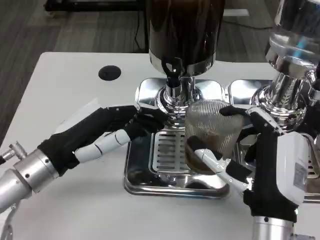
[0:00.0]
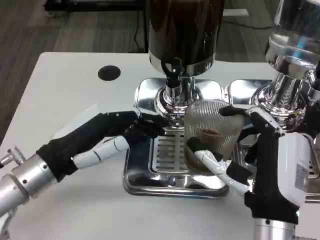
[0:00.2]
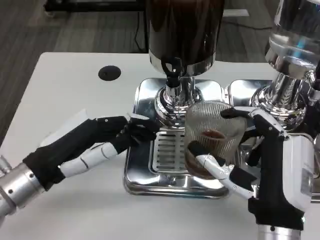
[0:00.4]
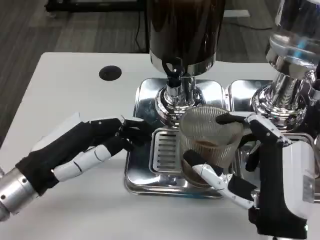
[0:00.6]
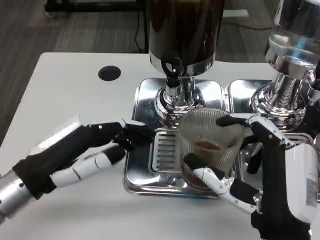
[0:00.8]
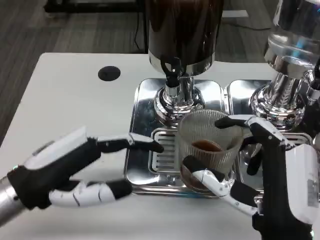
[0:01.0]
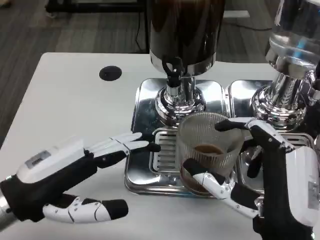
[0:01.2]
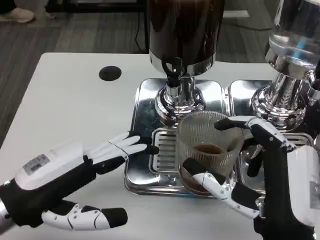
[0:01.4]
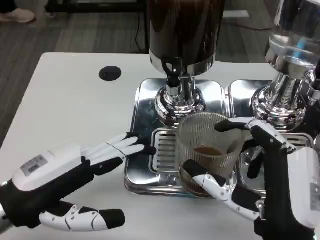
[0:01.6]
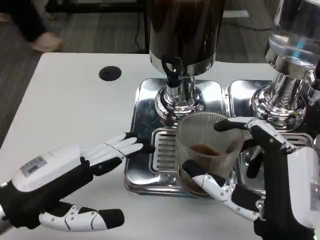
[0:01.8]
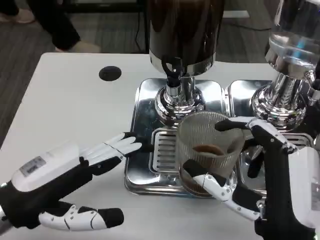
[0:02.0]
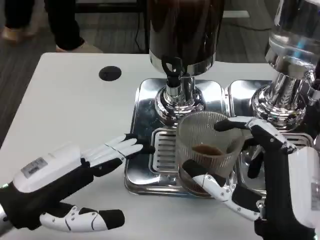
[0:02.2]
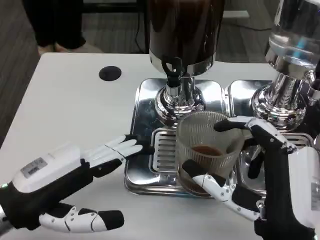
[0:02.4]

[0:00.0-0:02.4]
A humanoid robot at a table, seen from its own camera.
Task of the whole recording: Grasp the cup under the faucet to collect the drink, then remove the cup.
0:00.0 to 0:01.2: The left hand heads backward, covering approximately 5 cm.
0:01.2 to 0:02.4: The two hands keep their place.

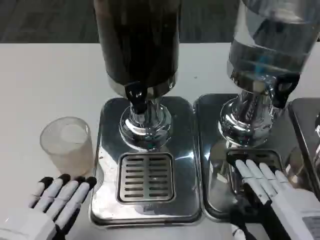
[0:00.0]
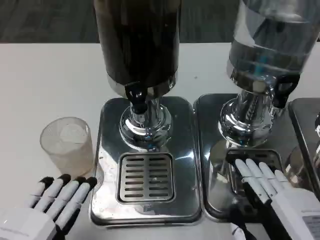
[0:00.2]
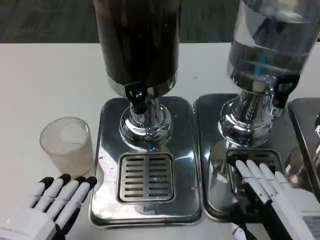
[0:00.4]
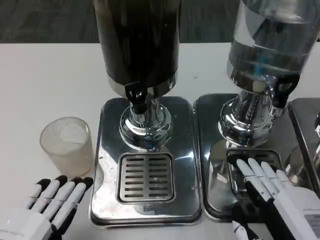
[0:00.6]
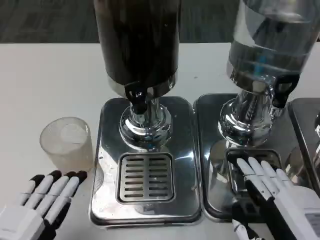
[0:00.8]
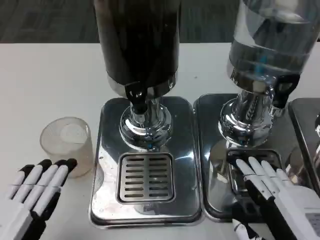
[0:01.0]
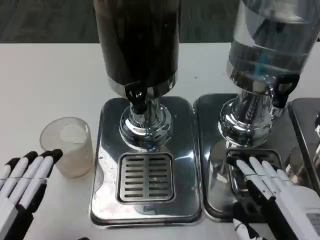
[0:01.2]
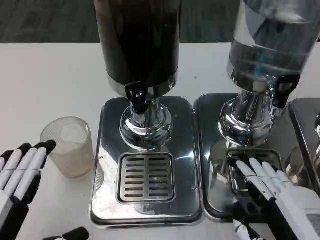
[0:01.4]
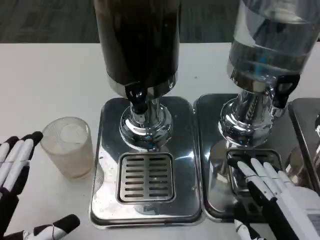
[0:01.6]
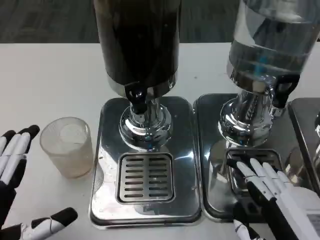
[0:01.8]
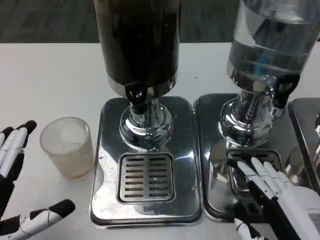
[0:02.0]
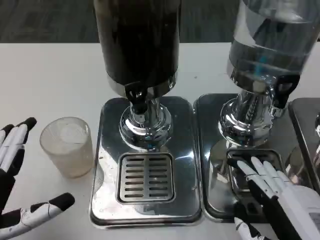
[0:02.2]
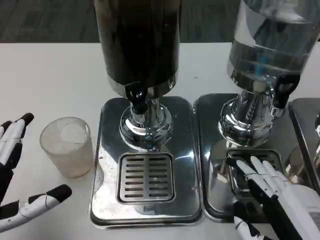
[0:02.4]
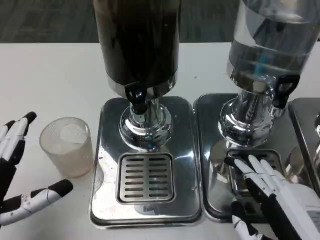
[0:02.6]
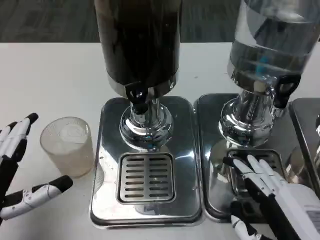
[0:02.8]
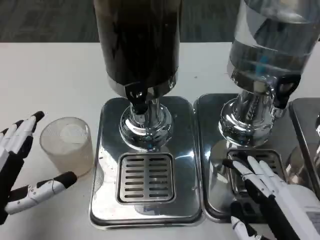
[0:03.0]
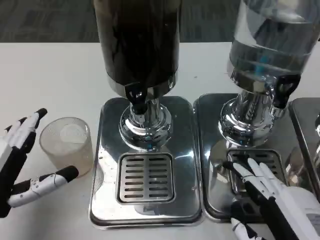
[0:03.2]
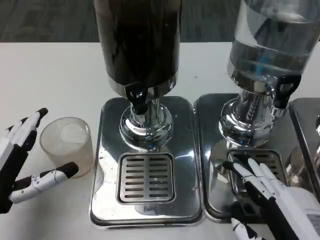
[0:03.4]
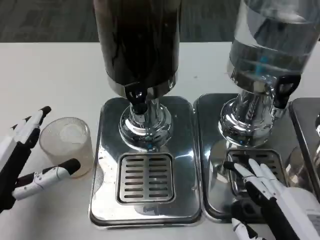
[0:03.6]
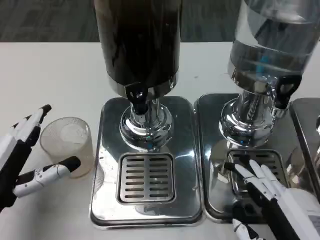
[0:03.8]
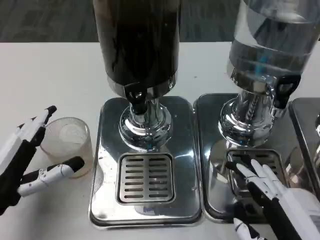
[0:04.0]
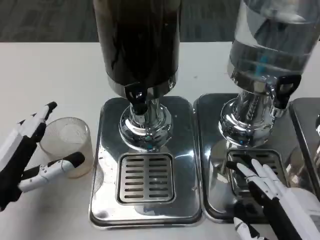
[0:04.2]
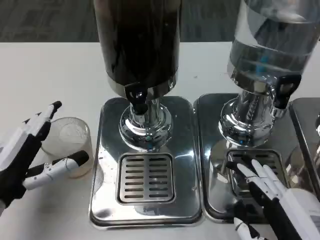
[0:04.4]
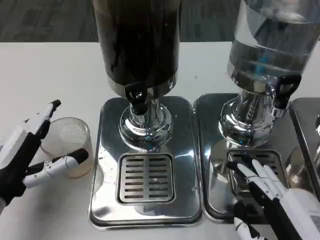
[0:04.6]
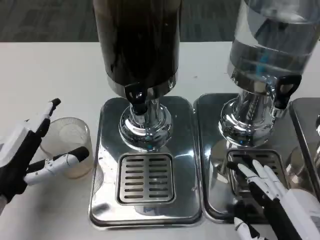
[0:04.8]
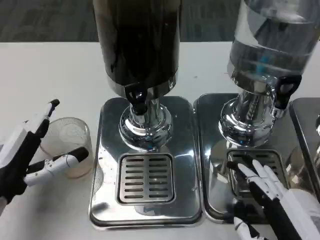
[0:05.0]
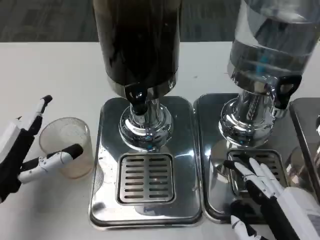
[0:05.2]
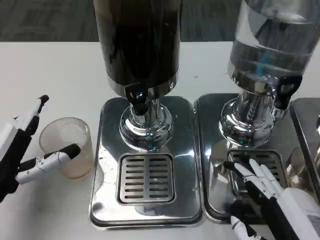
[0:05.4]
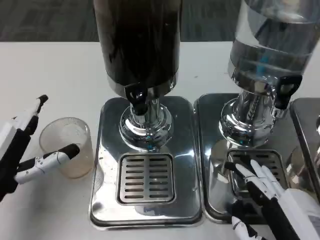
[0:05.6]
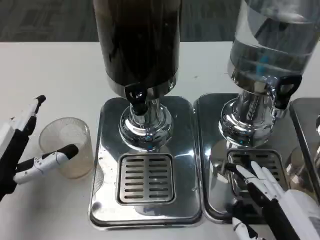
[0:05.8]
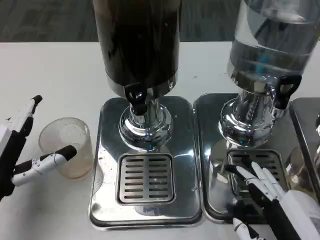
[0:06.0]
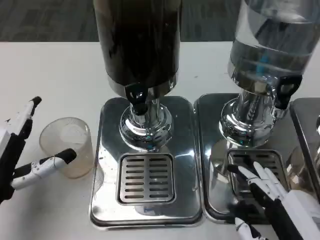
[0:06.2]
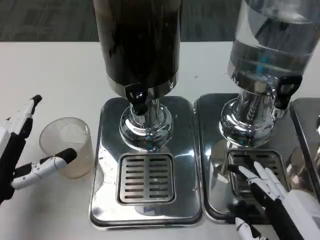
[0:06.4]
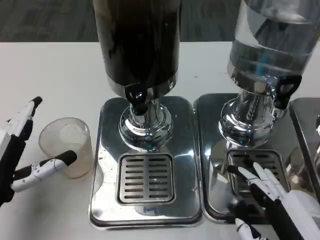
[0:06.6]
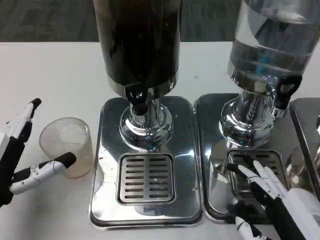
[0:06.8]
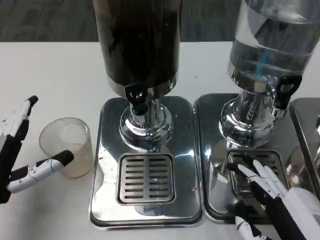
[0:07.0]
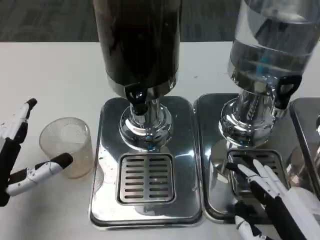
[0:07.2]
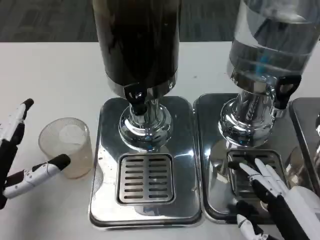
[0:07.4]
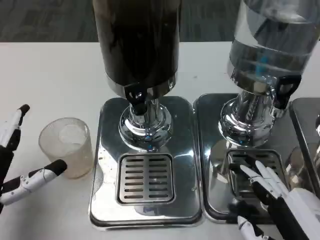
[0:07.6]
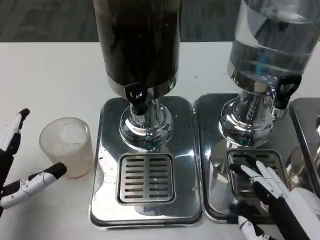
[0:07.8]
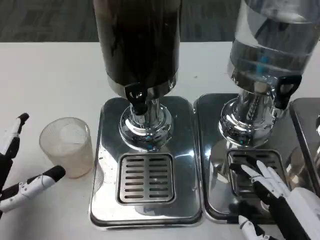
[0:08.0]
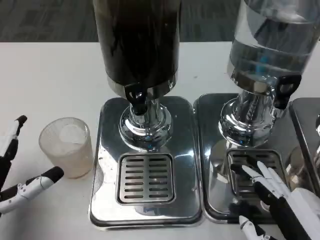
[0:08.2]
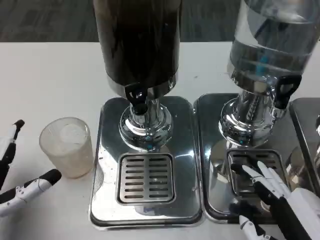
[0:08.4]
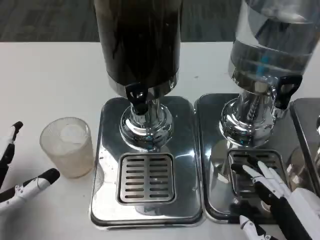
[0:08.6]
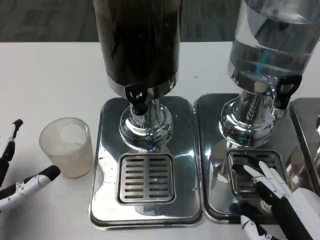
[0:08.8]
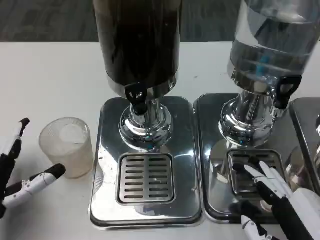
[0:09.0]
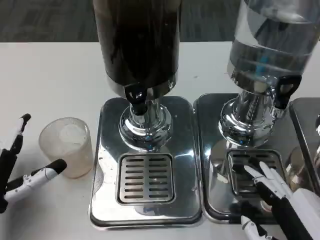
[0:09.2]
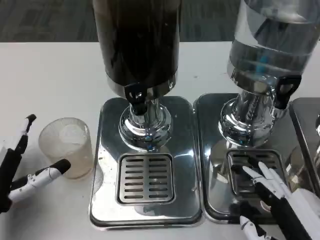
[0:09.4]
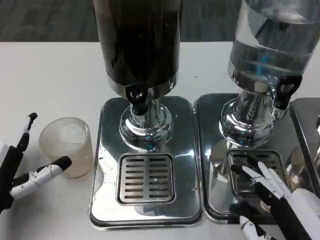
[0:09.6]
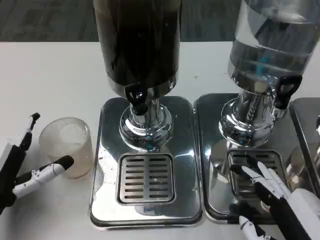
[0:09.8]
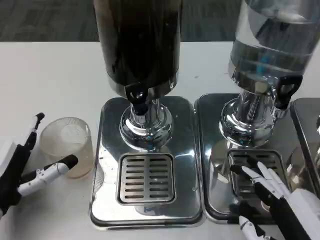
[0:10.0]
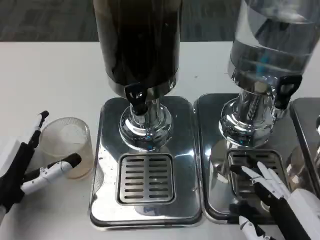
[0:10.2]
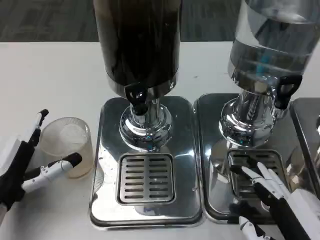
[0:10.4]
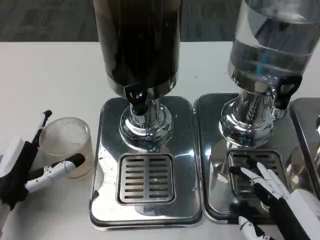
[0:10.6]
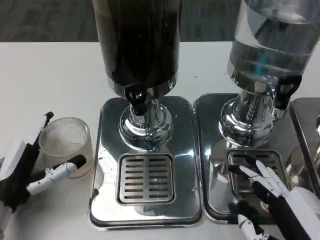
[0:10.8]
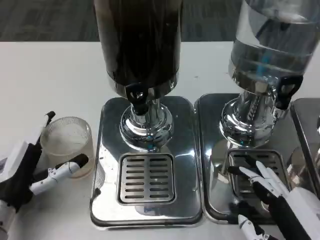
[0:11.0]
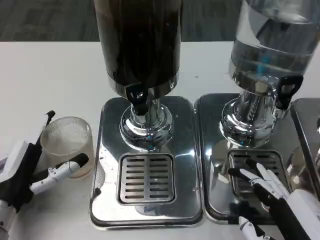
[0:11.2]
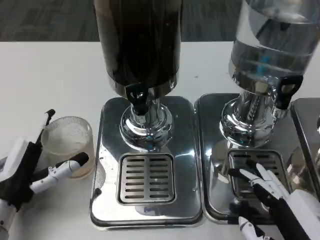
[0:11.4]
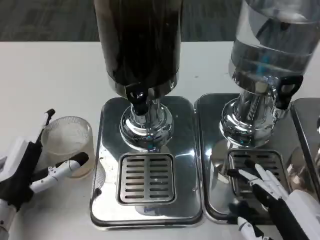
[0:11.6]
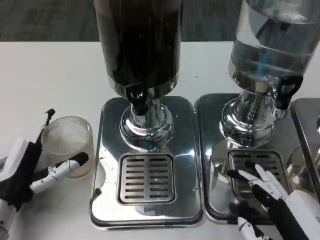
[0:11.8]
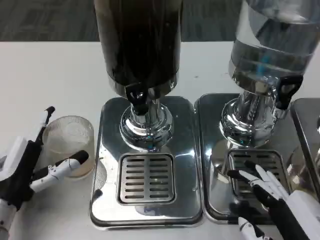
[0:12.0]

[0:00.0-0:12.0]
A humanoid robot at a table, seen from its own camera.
Task of the whole recording: Grasp the cup under the faucet to collect the drink, then remove the cup.
0:01.6 to 0:03.0: The left hand goes approximately 5 cm forward.
0:03.0 to 0:09.0: The hands move only a little.
0:09.0 to 0:12.0: The hands move only a little.

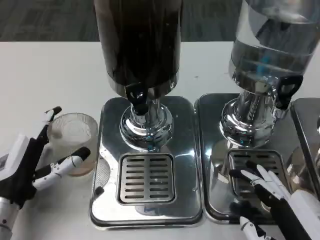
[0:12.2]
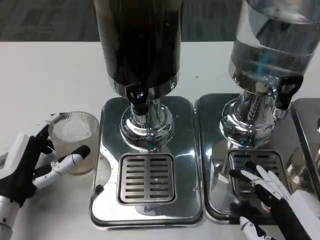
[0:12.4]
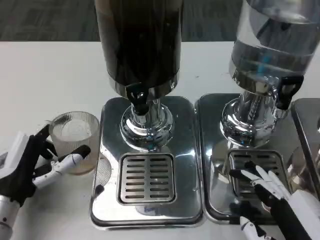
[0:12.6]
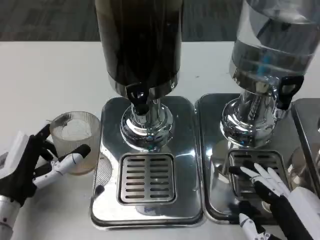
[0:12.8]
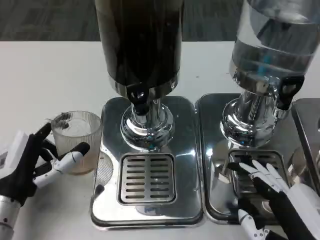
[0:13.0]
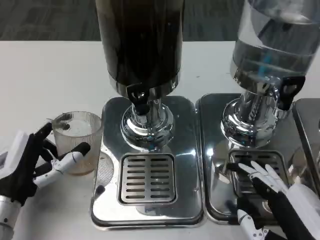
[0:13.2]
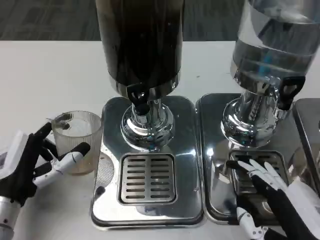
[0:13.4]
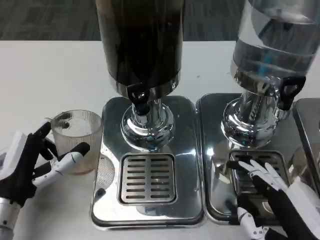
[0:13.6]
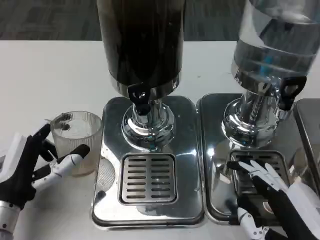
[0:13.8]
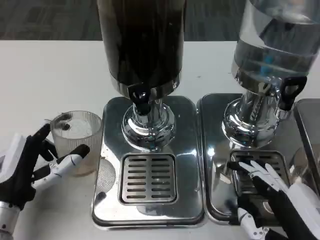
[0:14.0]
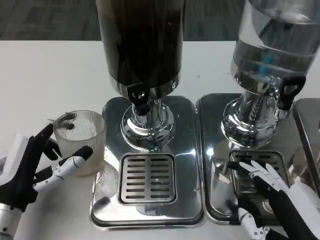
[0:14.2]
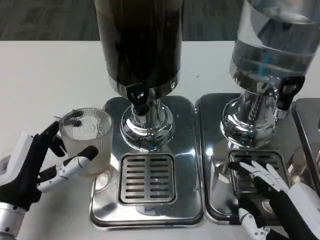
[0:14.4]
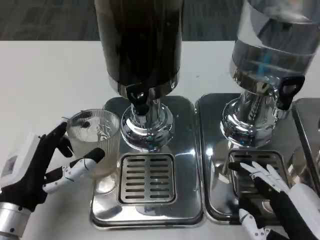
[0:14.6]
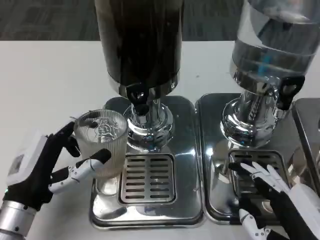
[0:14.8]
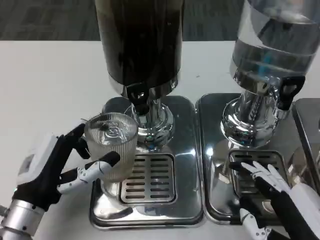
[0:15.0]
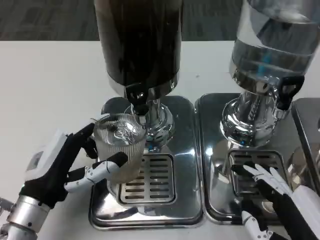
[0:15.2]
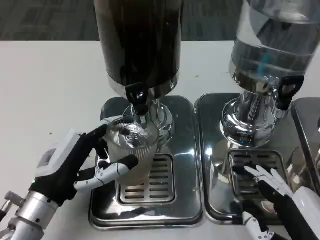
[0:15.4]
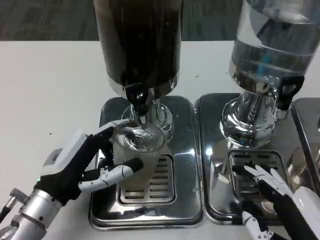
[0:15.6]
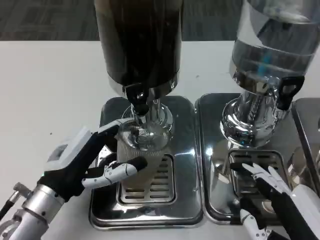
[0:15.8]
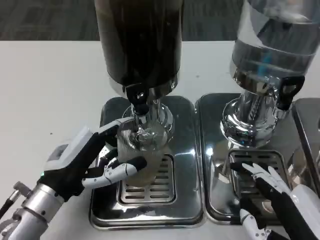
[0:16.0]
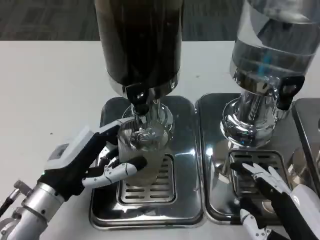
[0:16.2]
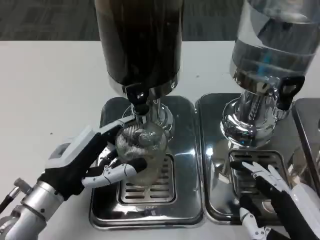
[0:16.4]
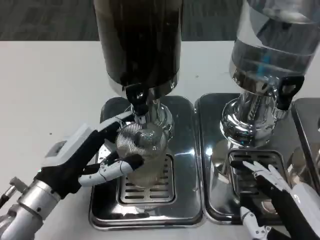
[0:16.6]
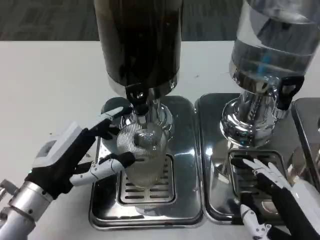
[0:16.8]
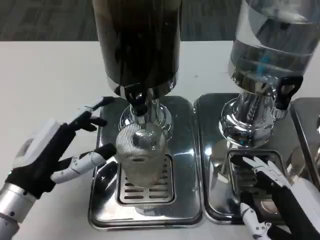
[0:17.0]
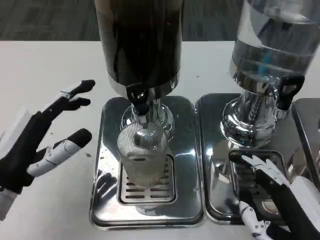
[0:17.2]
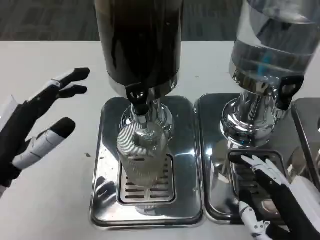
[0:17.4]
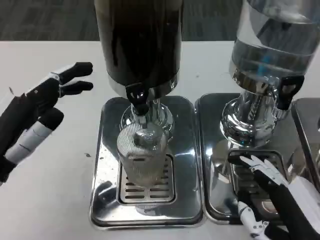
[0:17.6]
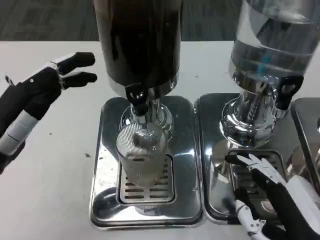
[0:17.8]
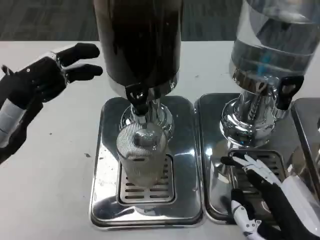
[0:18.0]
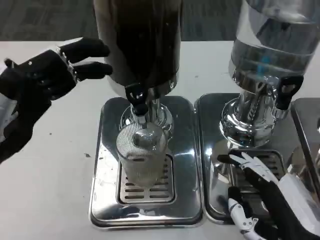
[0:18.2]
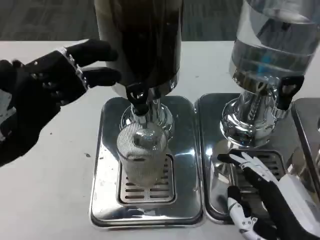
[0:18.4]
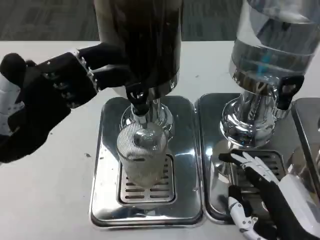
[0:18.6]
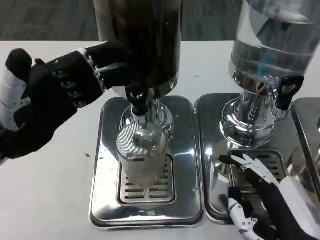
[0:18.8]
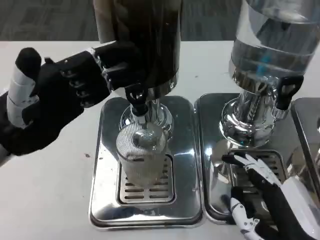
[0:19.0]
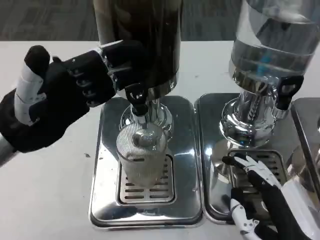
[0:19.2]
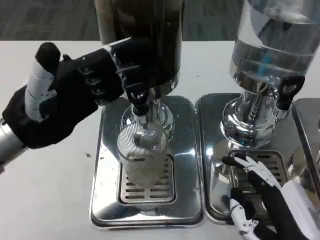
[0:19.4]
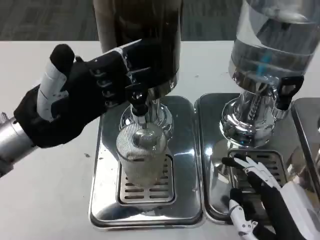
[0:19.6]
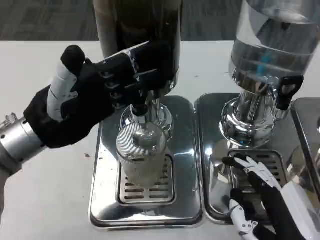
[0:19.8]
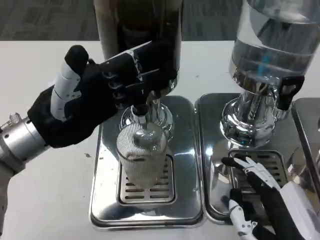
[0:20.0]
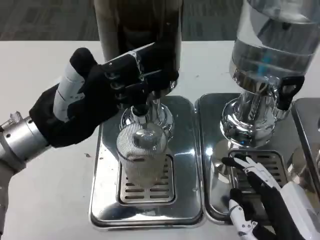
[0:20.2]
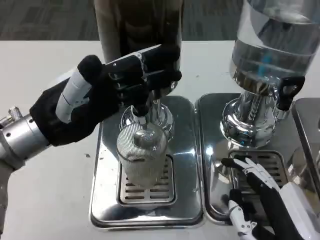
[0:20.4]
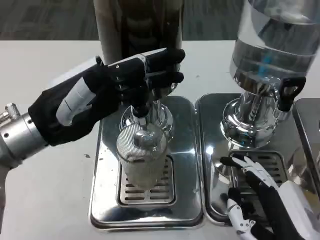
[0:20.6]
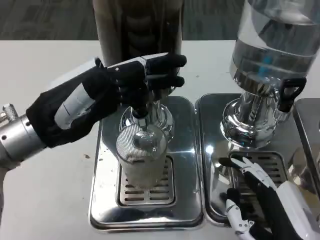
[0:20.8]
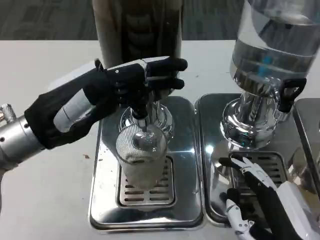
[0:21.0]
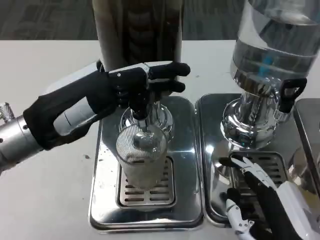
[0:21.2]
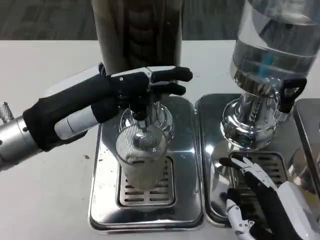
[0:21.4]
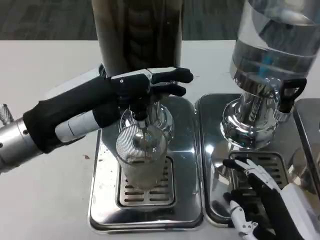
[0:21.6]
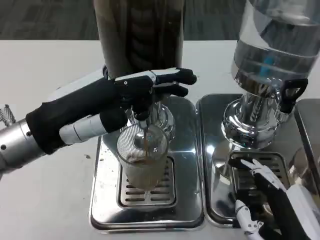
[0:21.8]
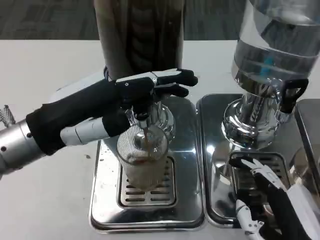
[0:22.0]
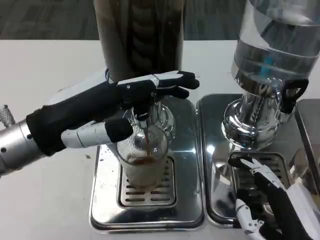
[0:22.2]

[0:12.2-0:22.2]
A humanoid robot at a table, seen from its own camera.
Task of the whole recording: Grasp the cup under the faucet to collect the drink, then remove the cup.
0:12.2 to 0:15.0: The hands make only small movements.
0:15.0 to 0:16.4: The hands make only small movements.
0:16.4 to 0:18.0: The left hand moves upward and to the left, roughly 10 cm.
0:18.0 to 0:19.4: The left hand shifts by roughly 5 cm.
